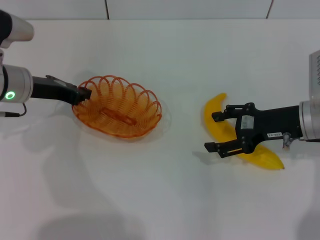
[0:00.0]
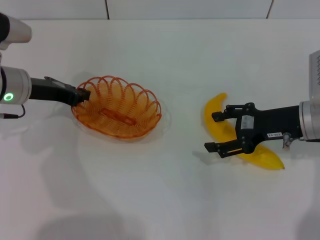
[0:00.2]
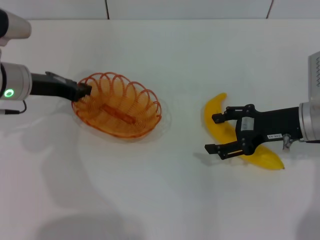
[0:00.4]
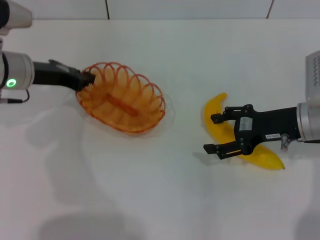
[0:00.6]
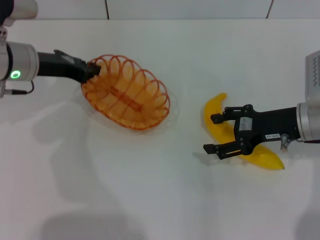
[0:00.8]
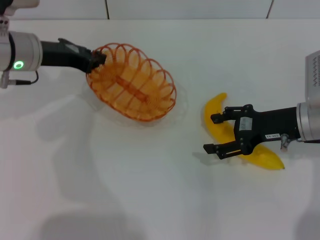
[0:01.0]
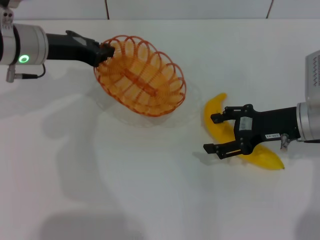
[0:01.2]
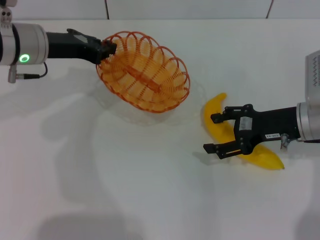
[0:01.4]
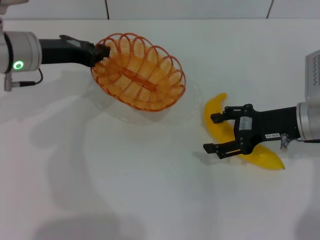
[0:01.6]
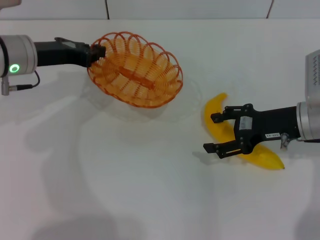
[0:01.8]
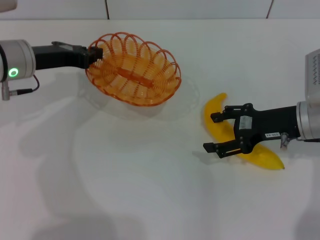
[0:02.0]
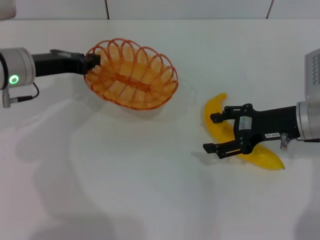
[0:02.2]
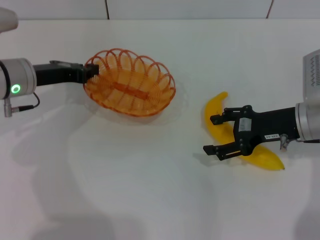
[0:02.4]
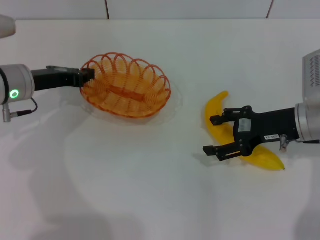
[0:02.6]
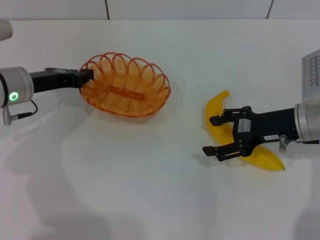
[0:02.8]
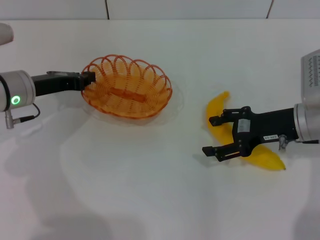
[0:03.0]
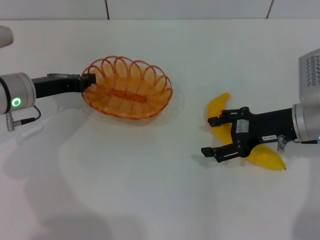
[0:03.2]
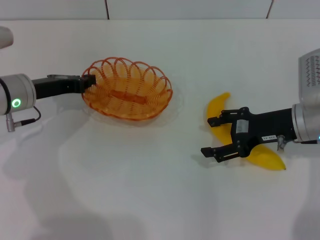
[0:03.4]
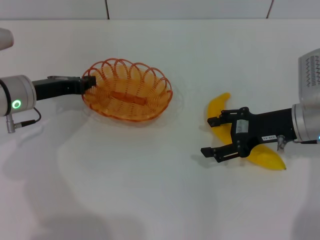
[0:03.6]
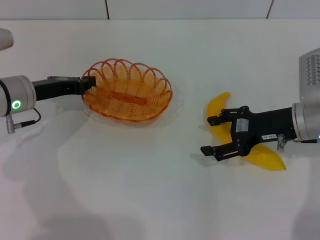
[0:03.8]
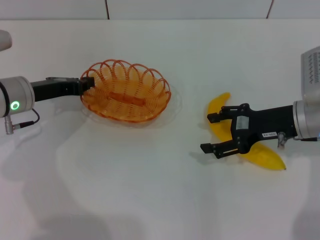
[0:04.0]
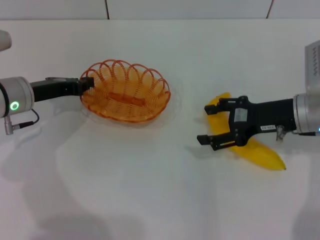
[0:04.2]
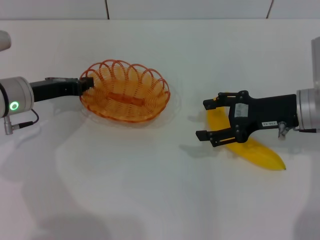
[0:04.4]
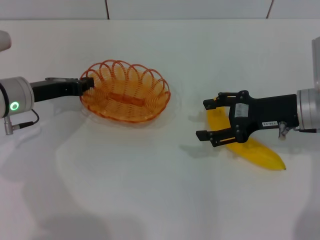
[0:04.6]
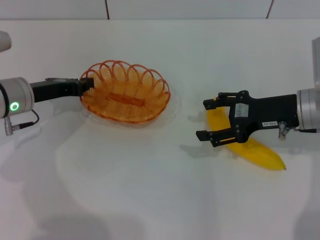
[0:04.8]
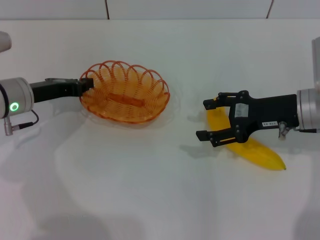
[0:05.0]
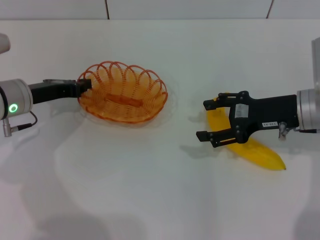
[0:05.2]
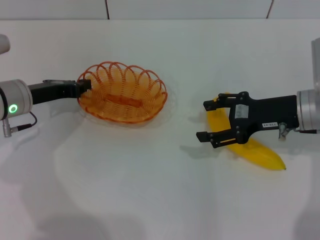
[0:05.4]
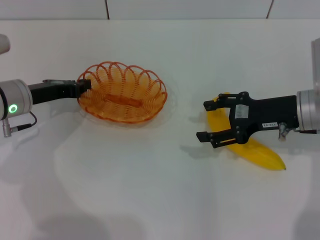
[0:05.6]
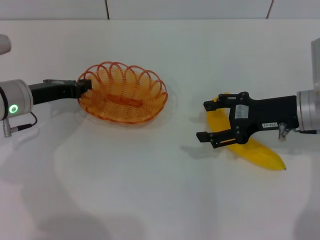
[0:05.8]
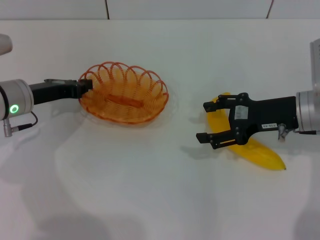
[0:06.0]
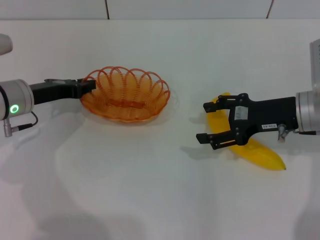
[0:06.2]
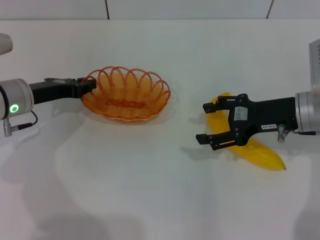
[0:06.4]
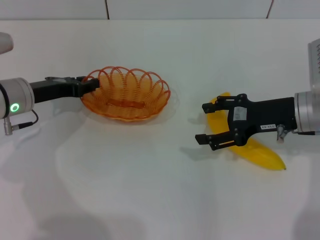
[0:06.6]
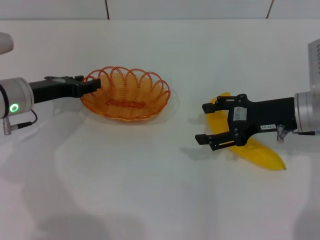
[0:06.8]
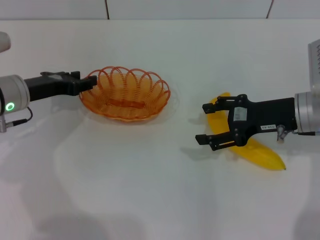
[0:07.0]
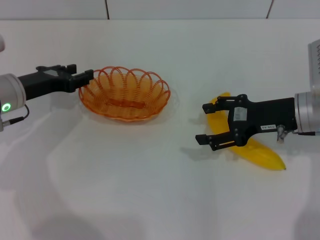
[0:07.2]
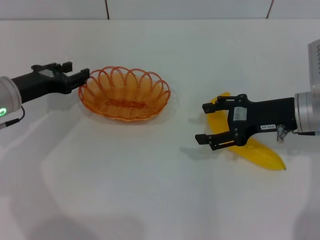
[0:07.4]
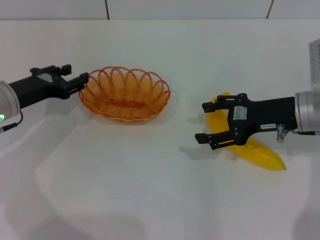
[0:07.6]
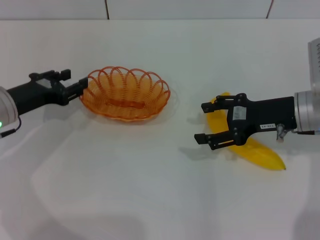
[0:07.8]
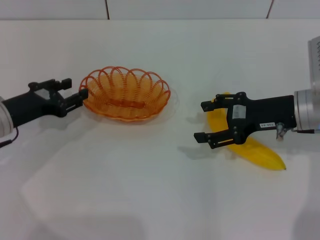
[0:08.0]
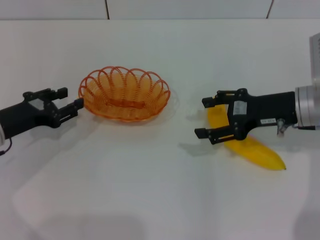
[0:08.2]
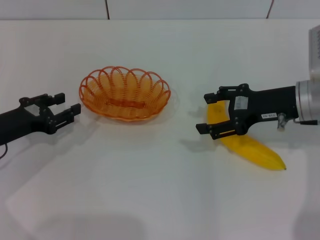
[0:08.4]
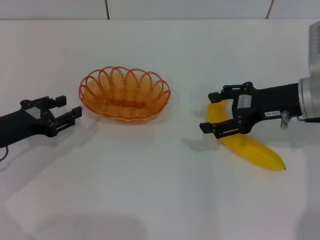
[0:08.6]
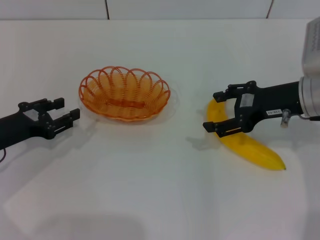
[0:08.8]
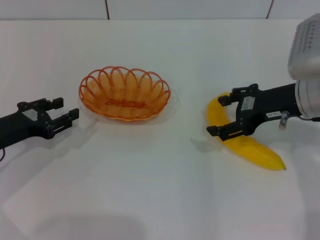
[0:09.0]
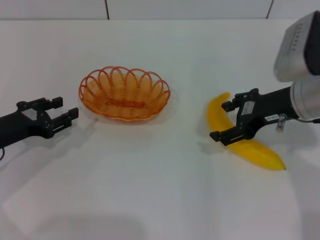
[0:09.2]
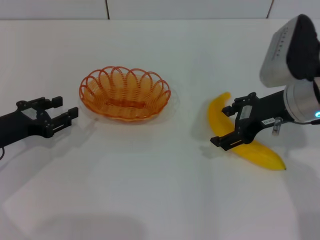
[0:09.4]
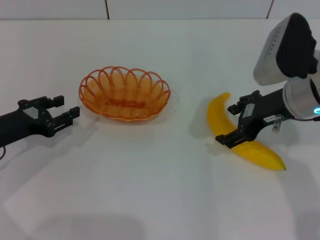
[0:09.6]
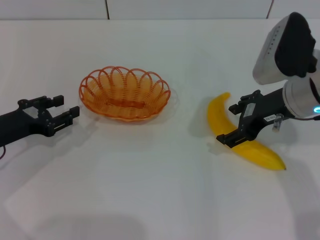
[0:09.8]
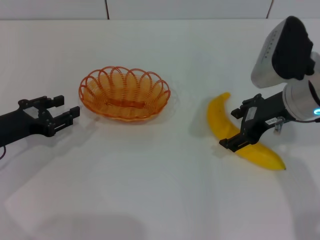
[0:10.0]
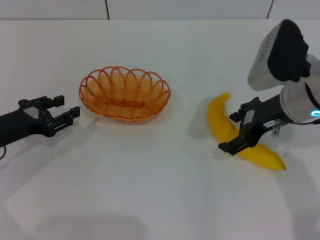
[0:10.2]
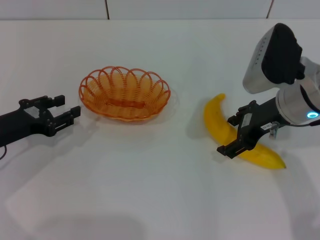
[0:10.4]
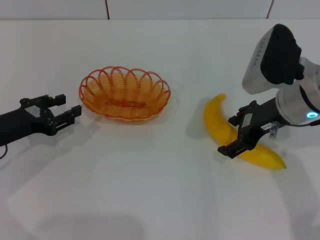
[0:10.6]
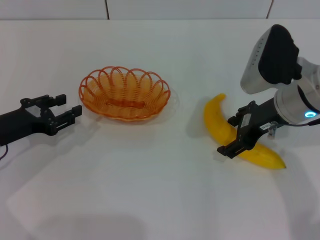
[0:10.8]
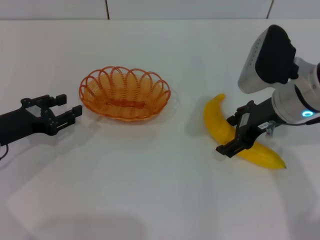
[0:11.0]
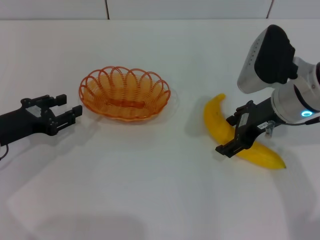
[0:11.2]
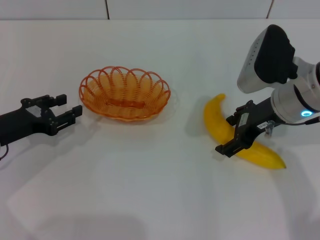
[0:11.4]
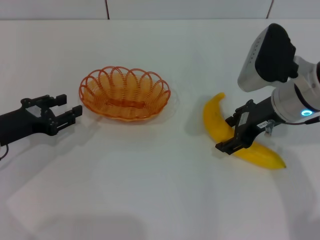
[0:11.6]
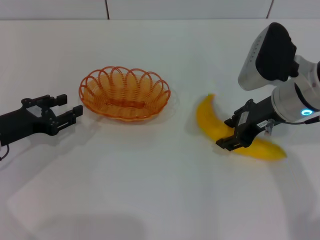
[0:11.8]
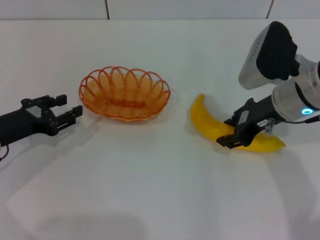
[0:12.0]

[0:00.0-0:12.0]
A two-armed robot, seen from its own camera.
Step, 0:00.0 to 0:07.2: Place the basket in the center of view with the left gripper.
0:01.6 to 0:03.0: The left gripper heads downward, covering some 5 cm.
0:03.0 to 0:04.4: The grippers move only a little.
0:04.4 to 0:06.0: The two grippers keep their place.
0:06.0 to 0:07.6: The left gripper opens up.
0:07.6 to 0:09.0: The left gripper goes some 5 cm backward.
0:09.0 to 0:10.4: The grippers move only a little.
0:10.4 to 0:12.0: The right gripper closes its fingers.

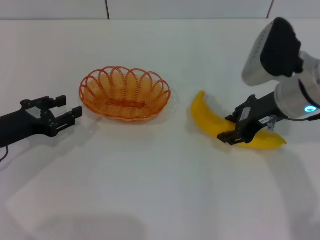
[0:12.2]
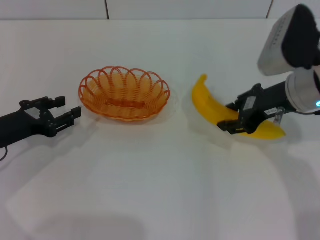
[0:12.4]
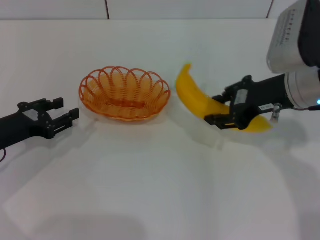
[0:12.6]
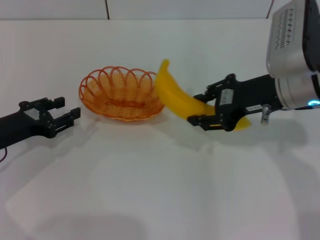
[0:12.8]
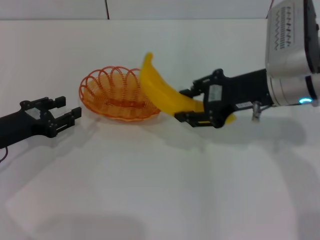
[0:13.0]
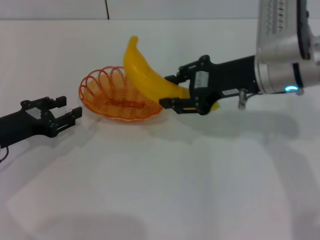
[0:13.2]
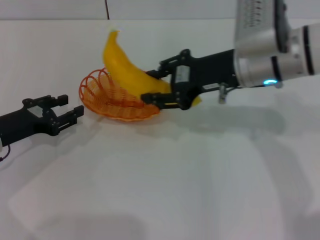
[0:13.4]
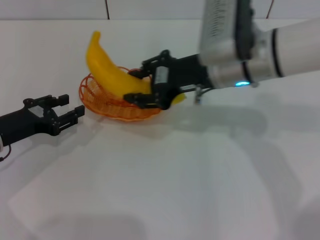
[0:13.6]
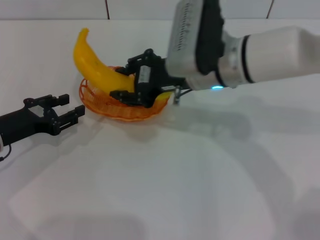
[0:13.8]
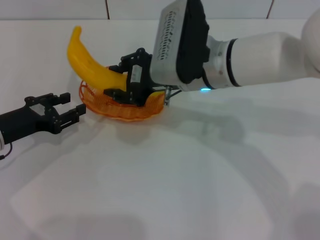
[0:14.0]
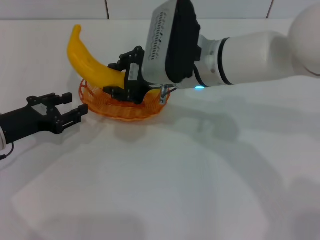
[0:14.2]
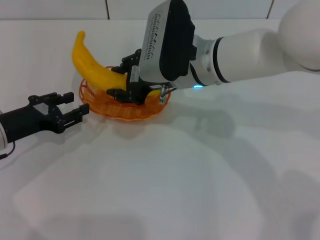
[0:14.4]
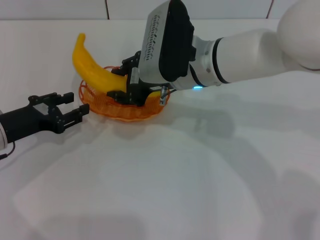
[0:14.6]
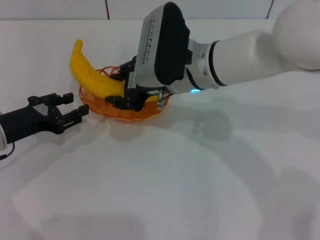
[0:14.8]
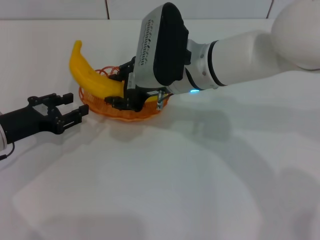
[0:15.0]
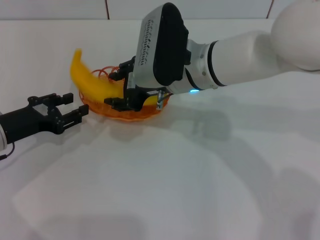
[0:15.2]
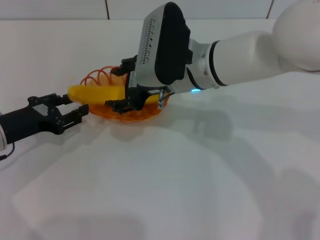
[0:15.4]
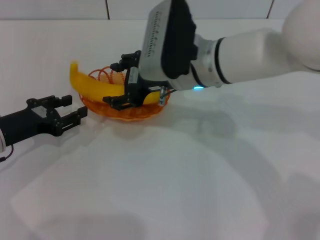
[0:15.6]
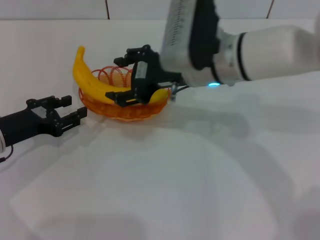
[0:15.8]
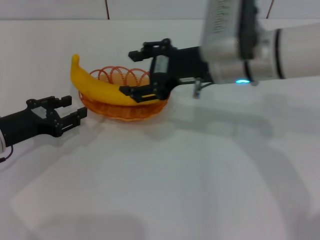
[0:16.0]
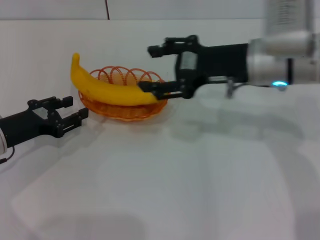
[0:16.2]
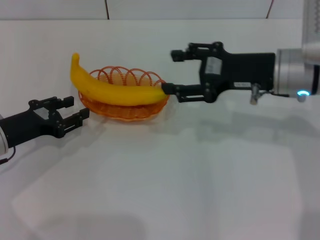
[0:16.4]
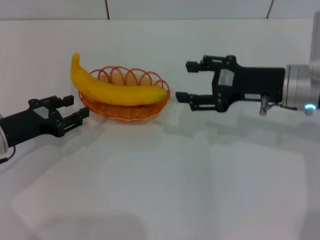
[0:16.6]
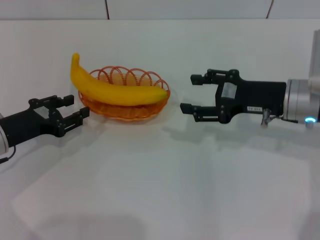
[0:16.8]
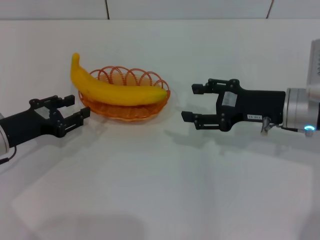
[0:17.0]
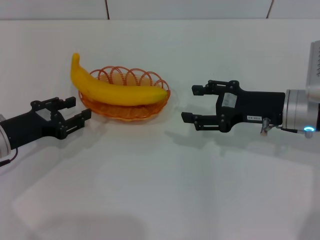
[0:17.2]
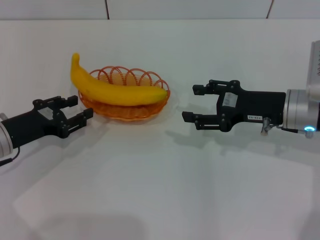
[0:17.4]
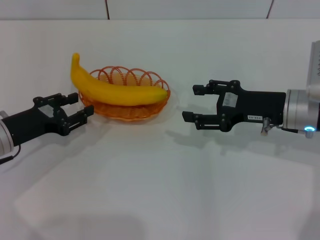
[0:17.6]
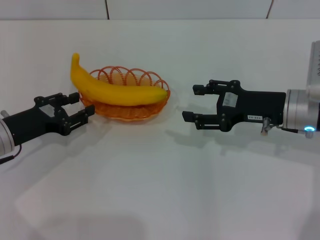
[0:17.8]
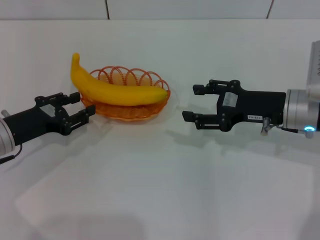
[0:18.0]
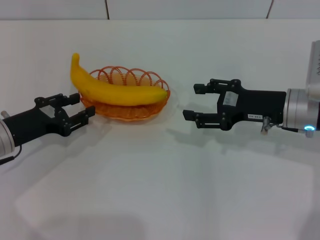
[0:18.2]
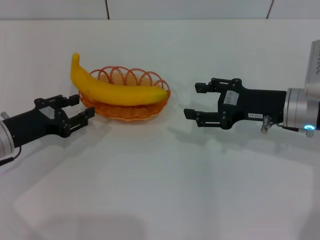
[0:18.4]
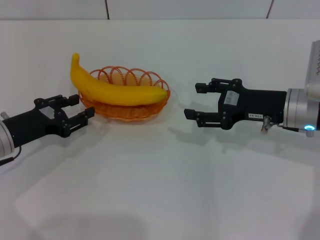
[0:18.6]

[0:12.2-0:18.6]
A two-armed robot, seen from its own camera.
Step, 0:12.6 to 0:16.0: Place the banana into the basket with the right gripper.
0:12.2 to 0:13.8: The right gripper is displaced to the left by some 10 cm.
0:13.8 to 0:15.4: The grippers make only small movements.
0:15.4 to 0:17.0: The right gripper goes about 15 cm to the right, and opens its fingers.
0:17.0 to 0:18.6: Neither gripper changes place.
